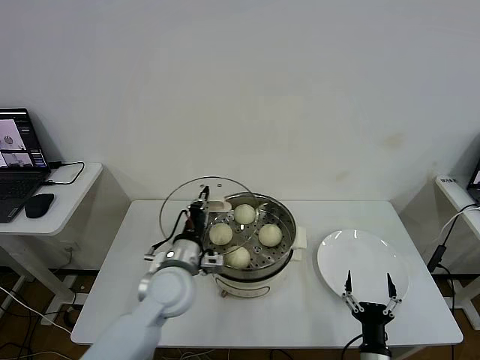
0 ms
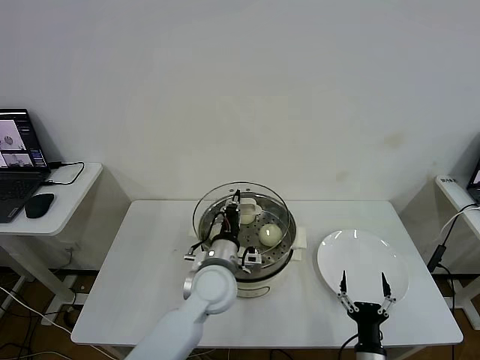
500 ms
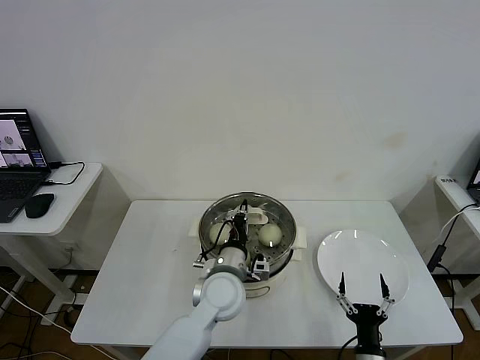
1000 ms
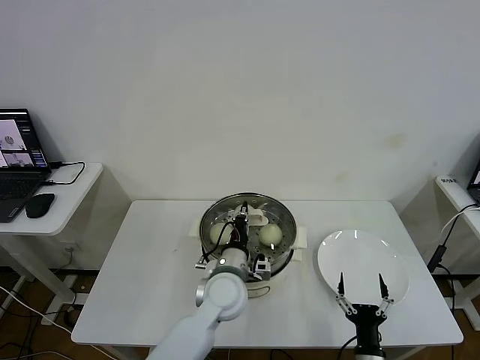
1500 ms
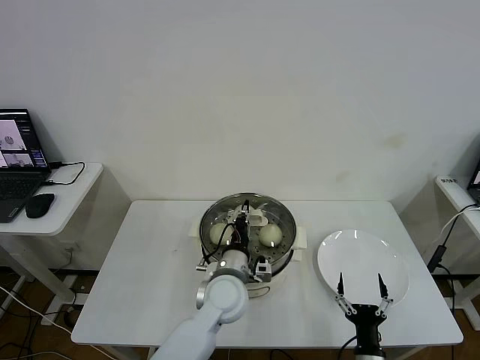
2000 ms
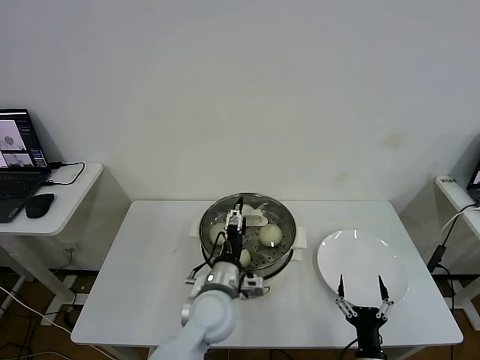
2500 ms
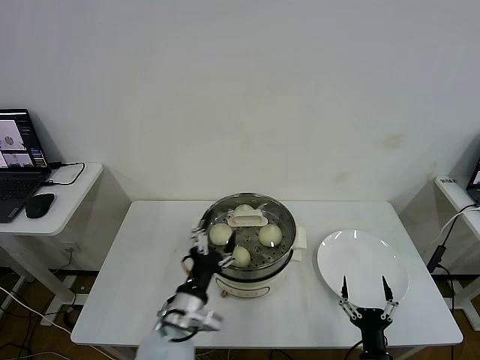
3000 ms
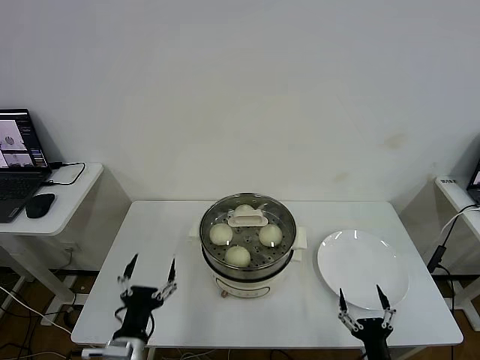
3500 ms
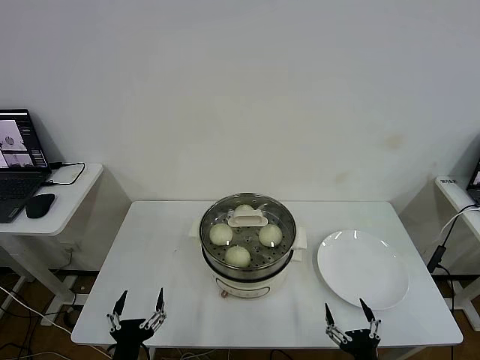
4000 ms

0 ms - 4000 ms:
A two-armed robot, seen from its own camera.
Step, 0 ms - 2500 ms: Place the pot lid on the steamer with left gripper.
0 ms - 2000 ms: The left gripper is displaced to the right by approximately 10 cm.
2000 ms - 4000 ms: The right gripper heads backward, covering approximately 5 cm, while the left gripper travels backward and to the left by some 30 cm, and opens up.

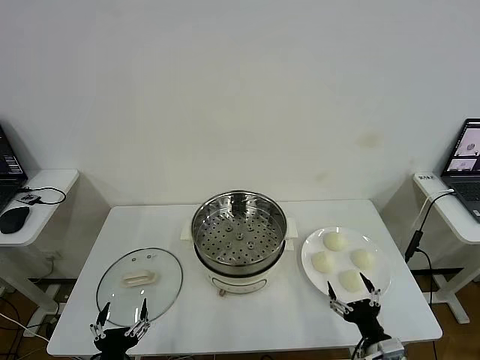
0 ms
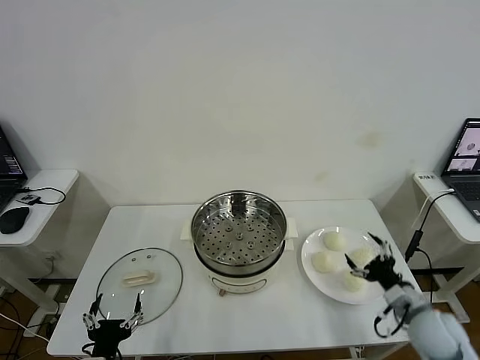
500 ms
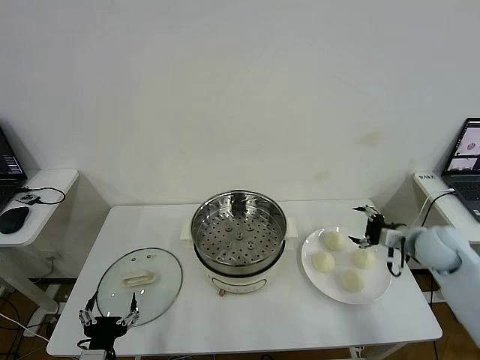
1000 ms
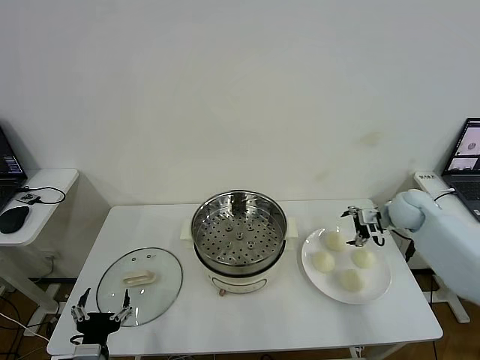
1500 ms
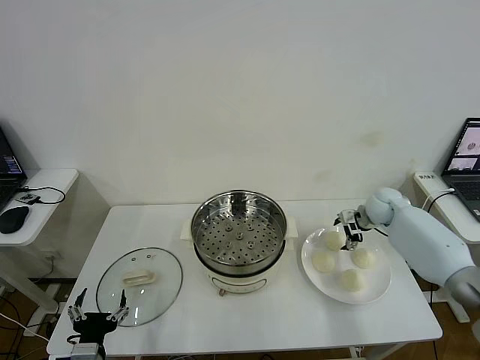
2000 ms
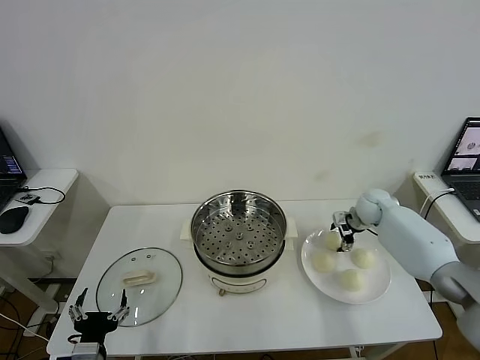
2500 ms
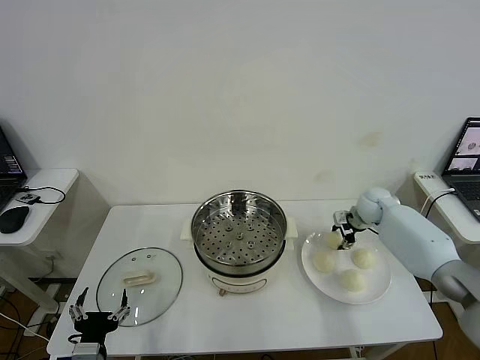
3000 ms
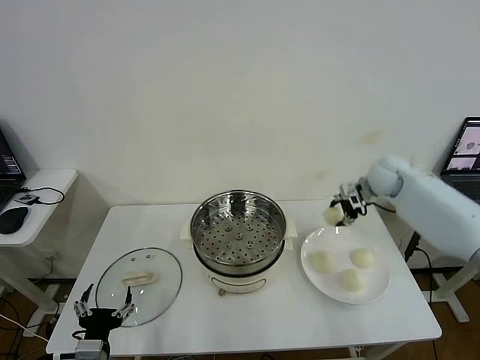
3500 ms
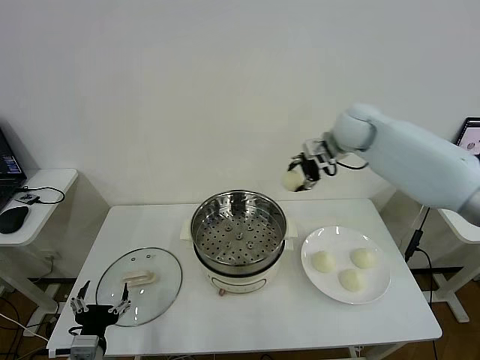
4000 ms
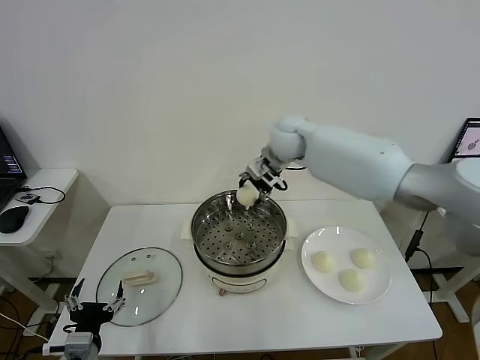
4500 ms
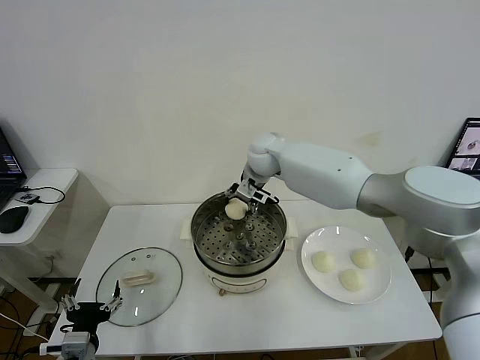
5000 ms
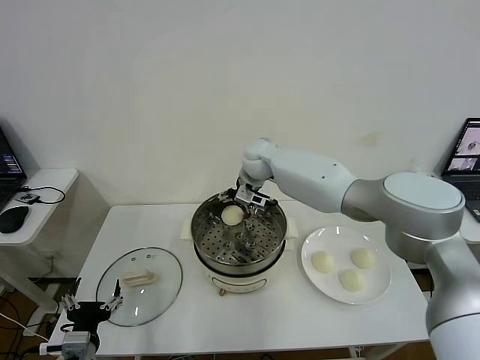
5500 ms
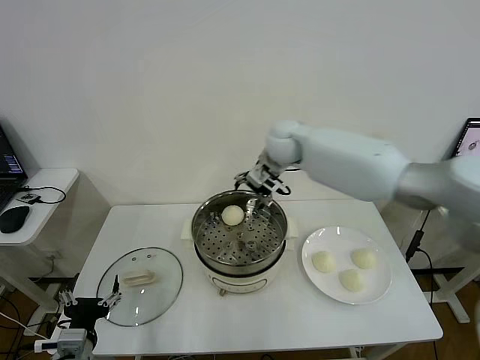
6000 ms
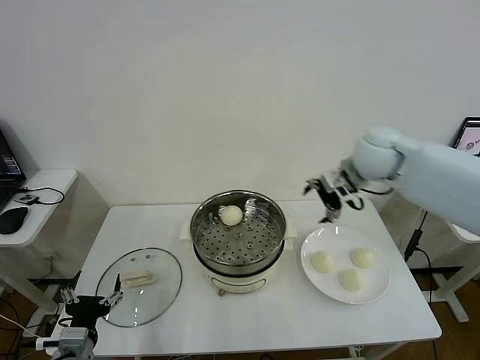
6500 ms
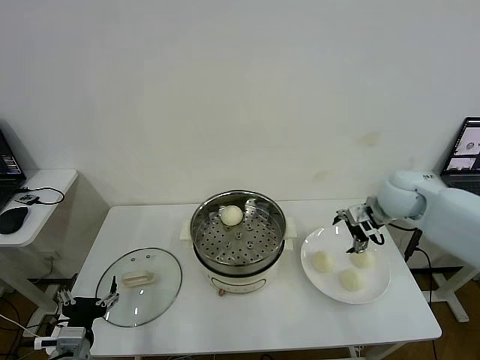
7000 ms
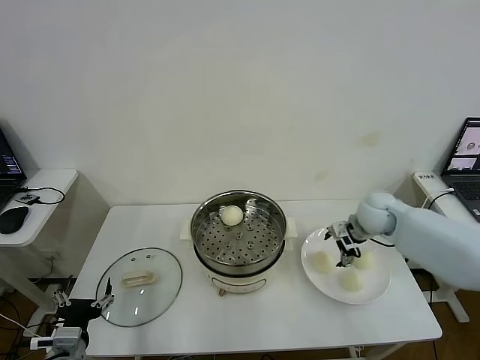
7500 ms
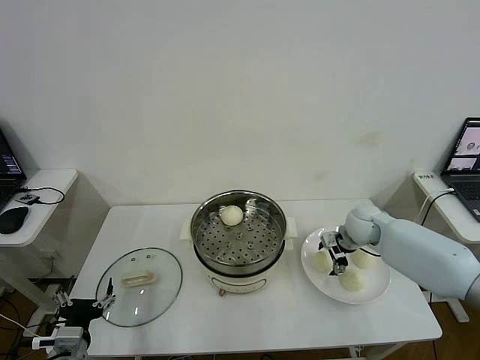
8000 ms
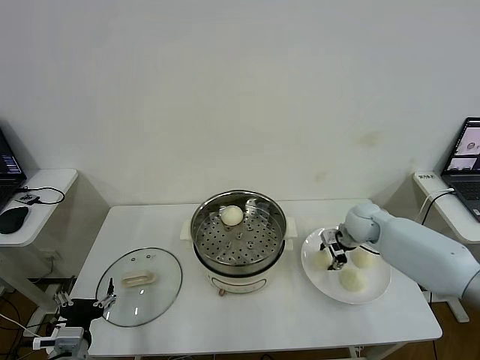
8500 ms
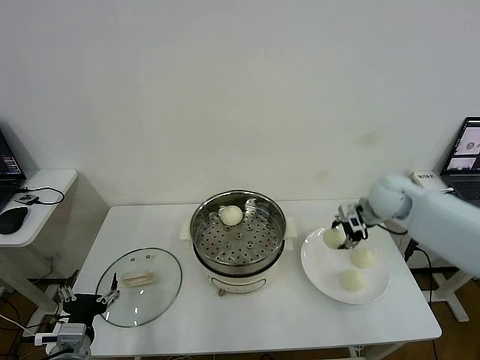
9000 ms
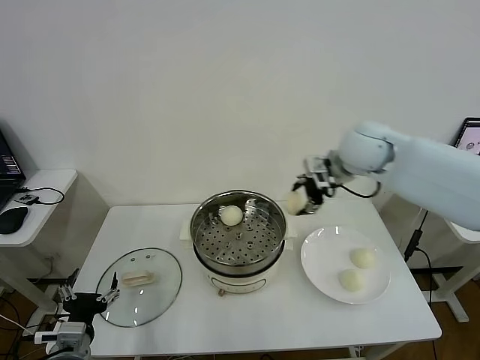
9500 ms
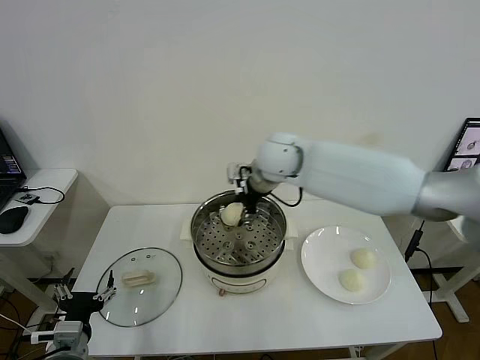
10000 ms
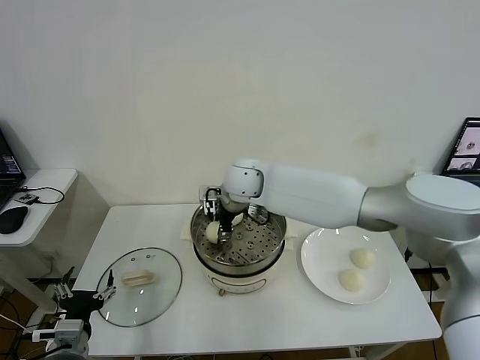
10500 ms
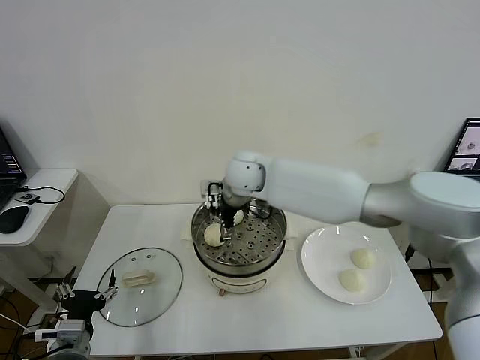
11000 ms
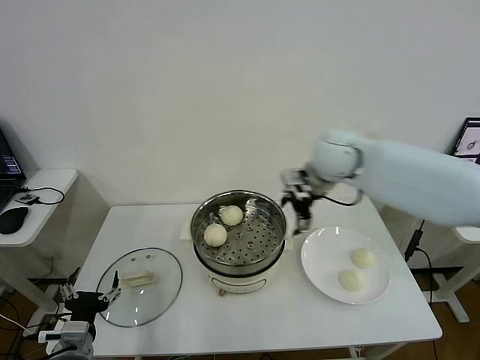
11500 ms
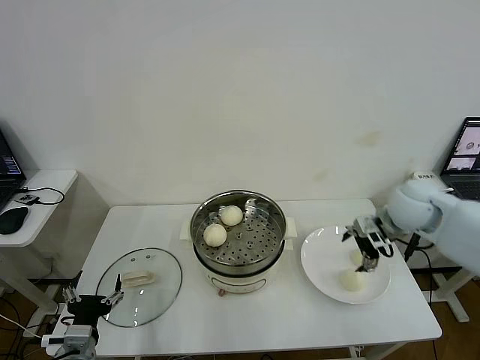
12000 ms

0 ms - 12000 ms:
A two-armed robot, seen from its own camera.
Step, 0 ms - 2500 ms: Grasp the baozi in the plate with right gripper.
Step, 3000 ms - 5500 ms: Place the baozi on the steamer with right gripper.
Step, 6000 ms - 8000 ms: Grasp the baozi in the plate with right gripper.
Step, 8500 ms - 10500 ms: Place the baozi on the steamer with right gripper.
2000 ms - 4000 ms: The right gripper is displaced upward and to the left by roughly 30 cm, and closes its fingers.
4000 ms - 6000 ms: The right gripper travels to the left by some 5 cm, and opens.
6000 ms - 8000 ms: The right gripper is displaced downward and to the right by some 25 cm.
8000 ms - 10000 ms: The right gripper shifts approximately 30 cm to the left and upward, and closes up.
10000 ms - 12000 ms: The right gripper is displaced to the right by about 30 cm, and opens.

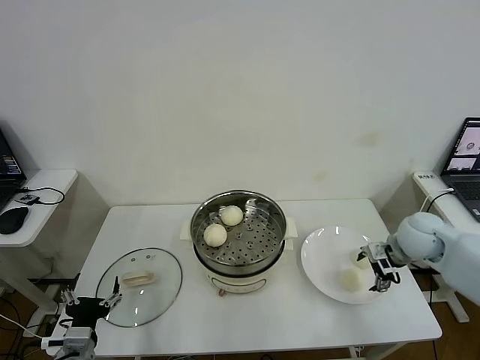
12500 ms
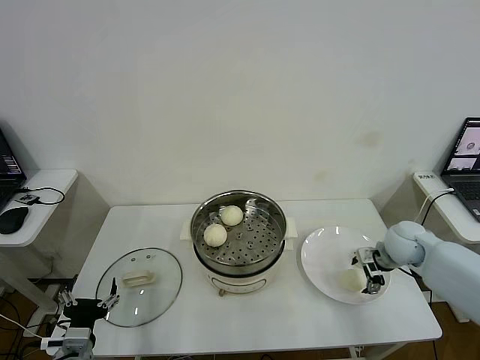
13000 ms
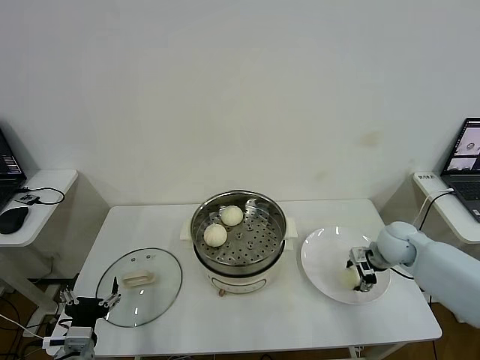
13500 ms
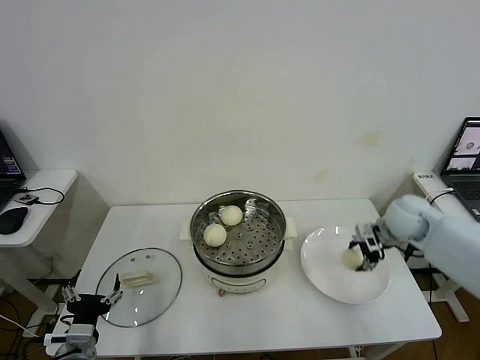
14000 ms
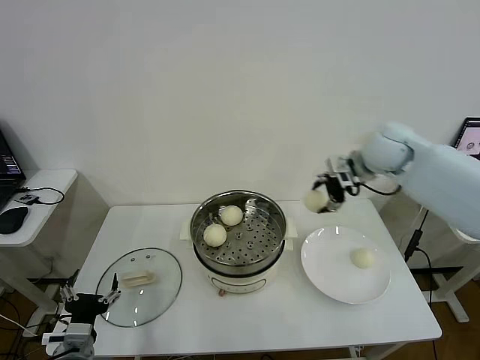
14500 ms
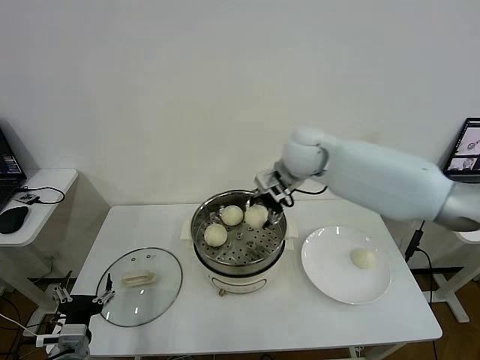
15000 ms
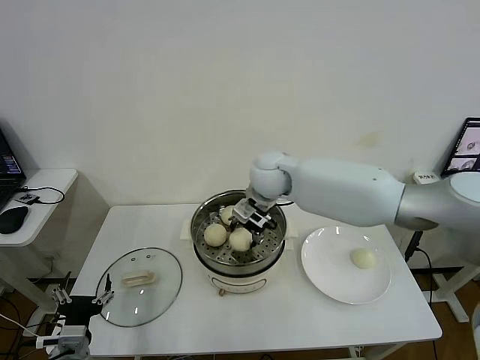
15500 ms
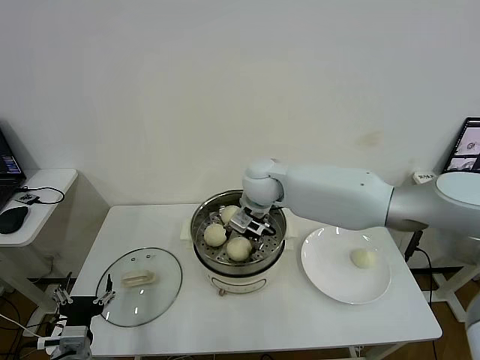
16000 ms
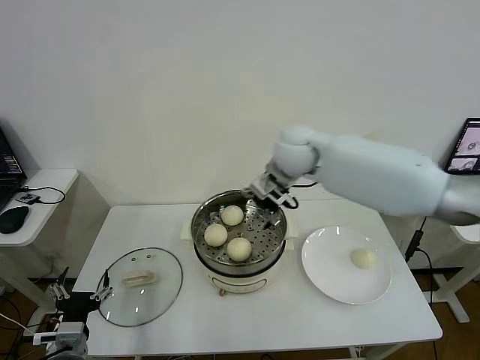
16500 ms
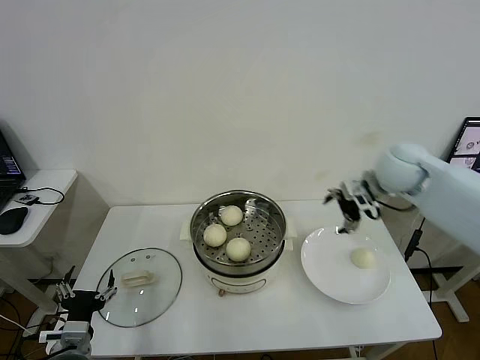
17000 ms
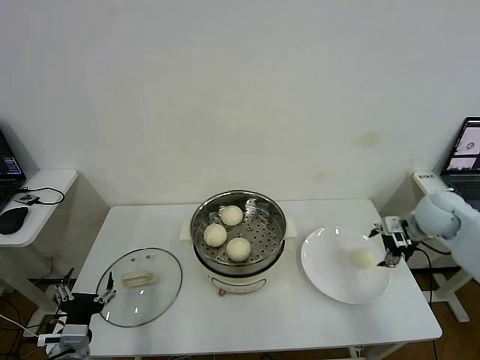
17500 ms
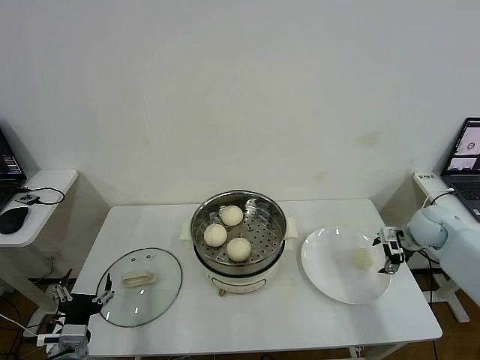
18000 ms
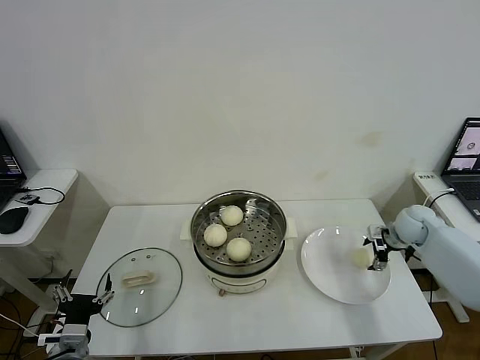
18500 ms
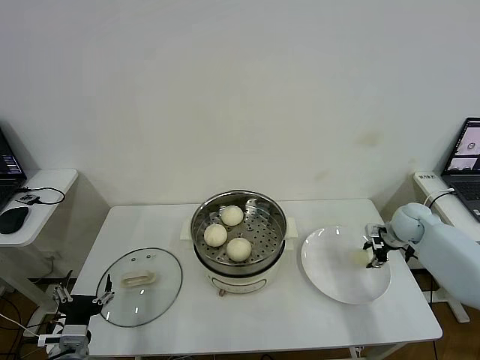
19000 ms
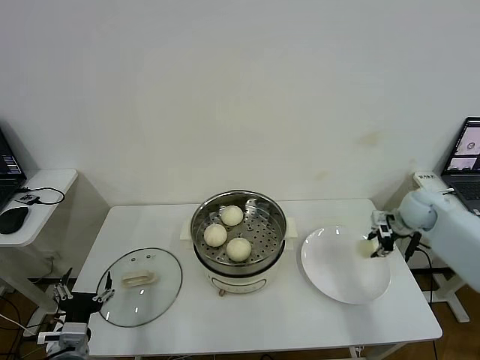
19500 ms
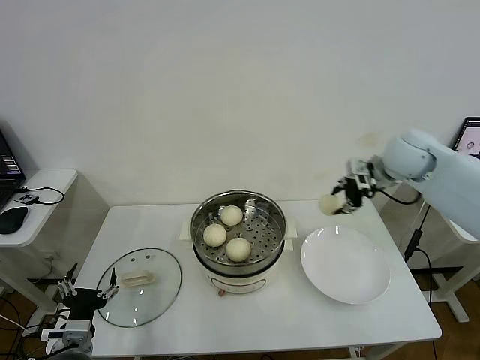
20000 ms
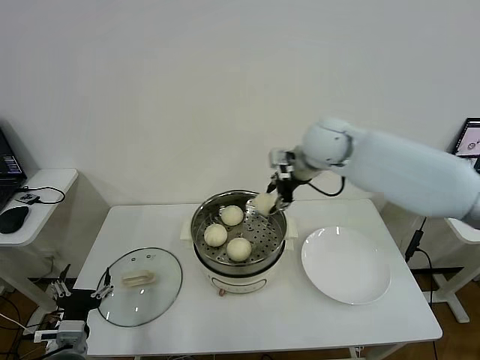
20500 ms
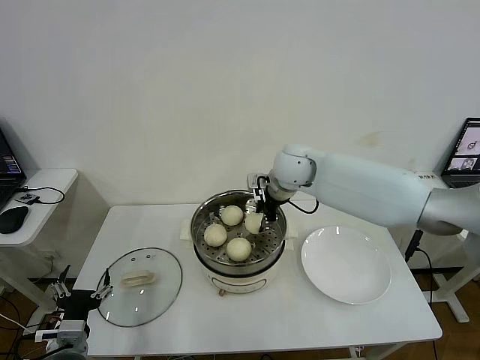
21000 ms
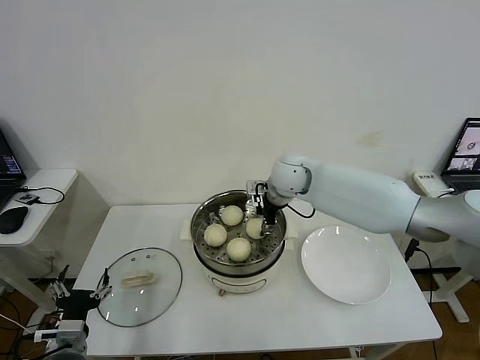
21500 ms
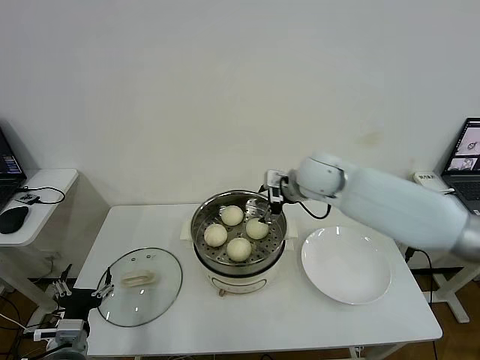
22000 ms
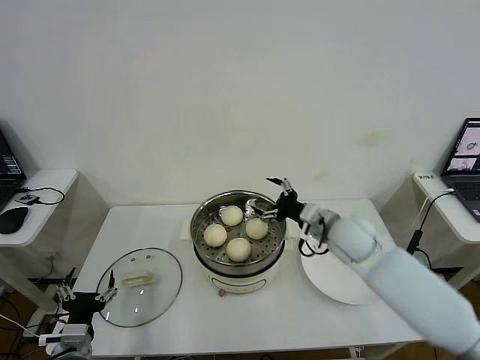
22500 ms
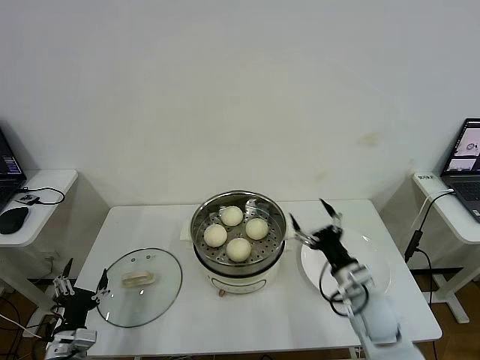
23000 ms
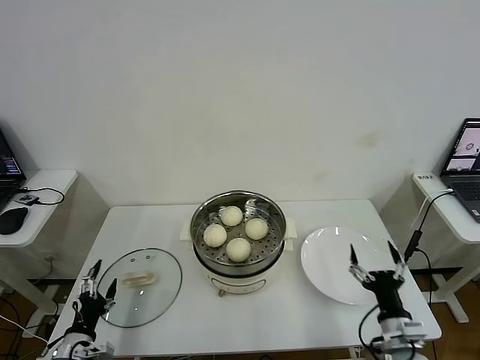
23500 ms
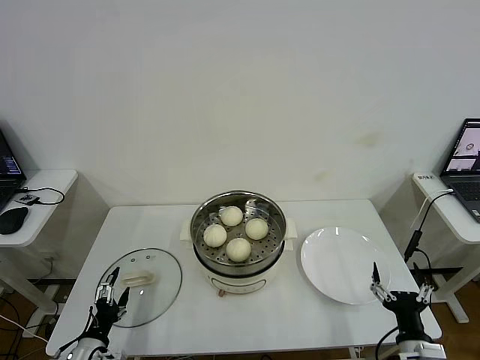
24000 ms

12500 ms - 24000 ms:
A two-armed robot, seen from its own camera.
Step, 14000 ms - 16000 ms: Place the baozi on the steamer with right gripper.
Step, 16500 ms - 18500 ms: Grasp the baozi in the plate with right gripper.
Step, 19500 ms - 21500 ms: Place the baozi on the steamer with right gripper.
12500 ms - 14500 ms: The right gripper is displaced upward, to the left and forward by some 25 cm, and closes its fingers.
14500 ms - 16500 ms: The right gripper moves to the left, some 15 cm, and opens its fingers.
16500 ms - 18500 ms: The right gripper heads to the right and downward, covering about 40 cm.
18500 ms - 20000 ms: The right gripper moves upward and to the left, approximately 25 cm, and closes its fingers.
20000 ms - 22000 ms: The right gripper goes about 15 cm to the left, and opens up.
22000 ms - 24000 ms: The left gripper shifts some 10 cm downward; the right gripper goes approximately 50 cm backward, downward and to the right.
